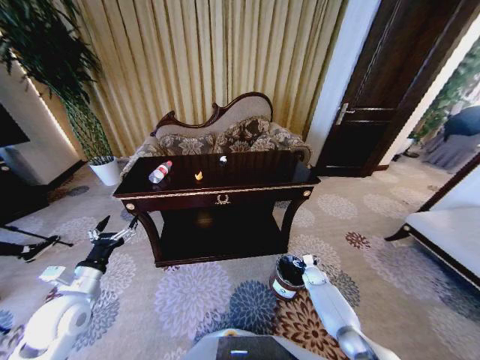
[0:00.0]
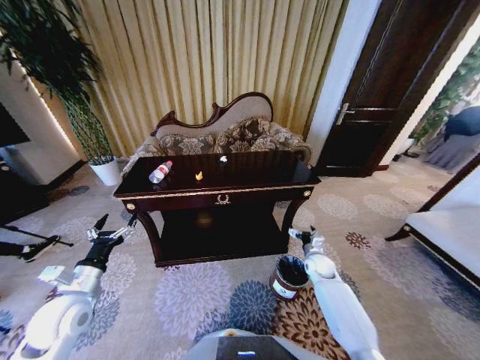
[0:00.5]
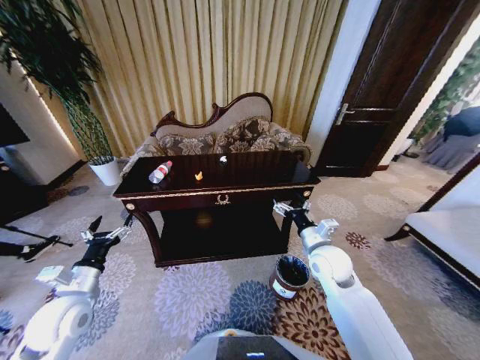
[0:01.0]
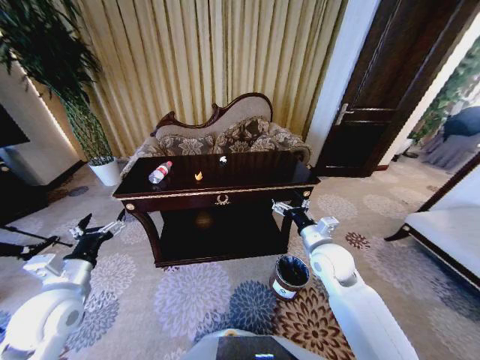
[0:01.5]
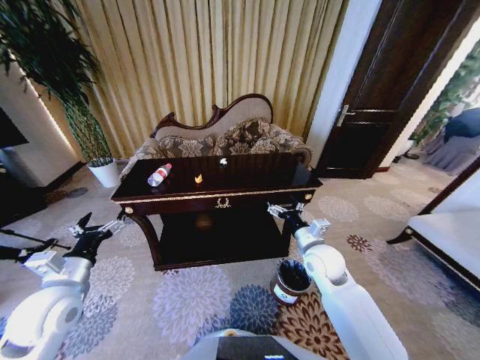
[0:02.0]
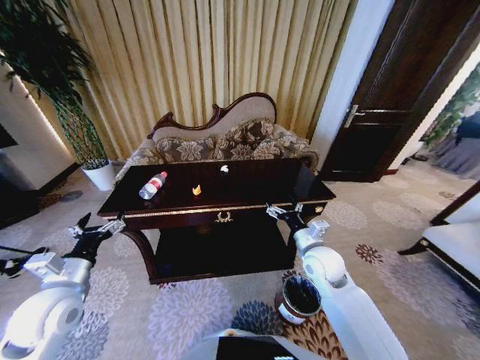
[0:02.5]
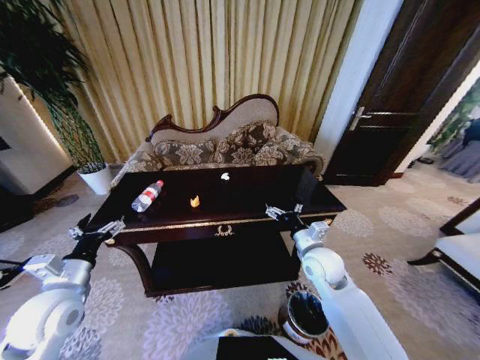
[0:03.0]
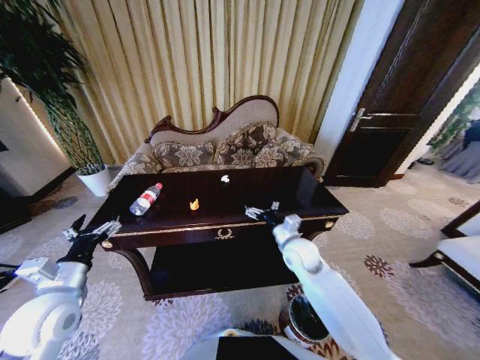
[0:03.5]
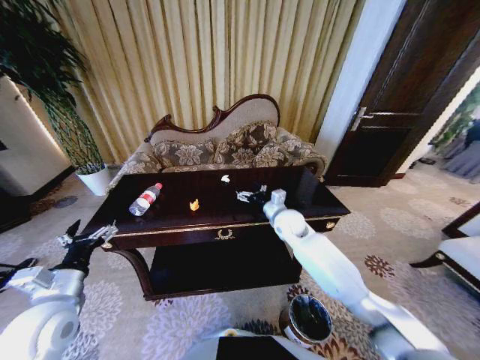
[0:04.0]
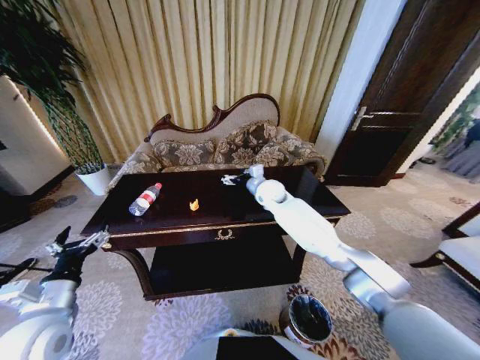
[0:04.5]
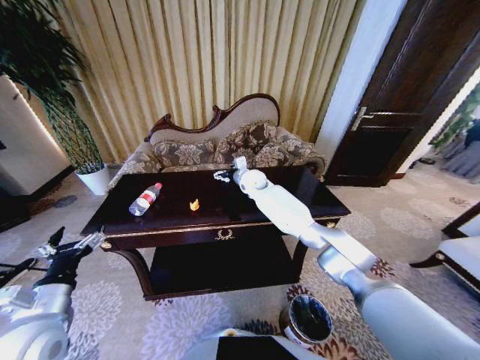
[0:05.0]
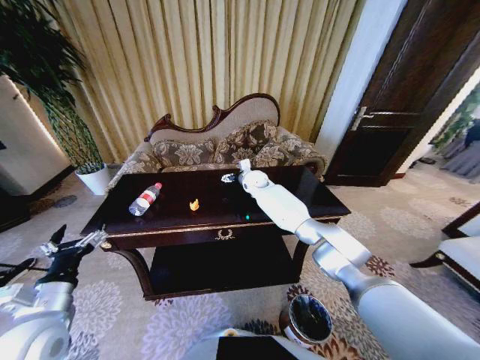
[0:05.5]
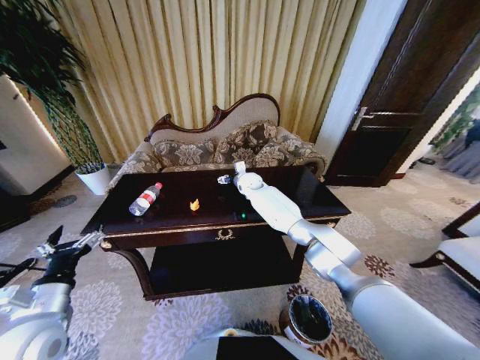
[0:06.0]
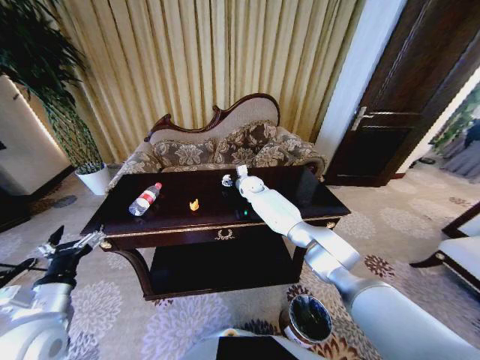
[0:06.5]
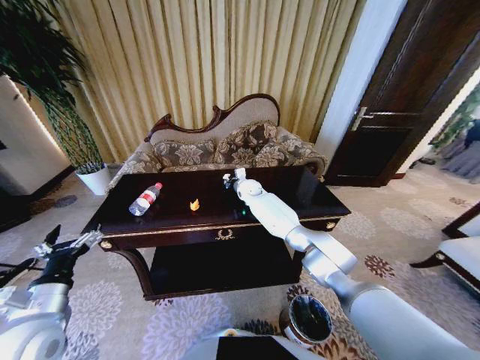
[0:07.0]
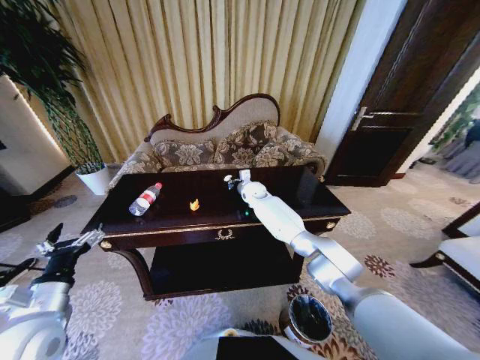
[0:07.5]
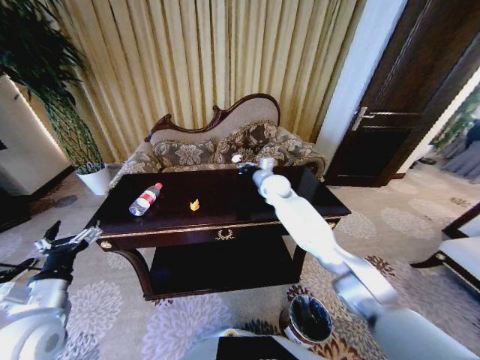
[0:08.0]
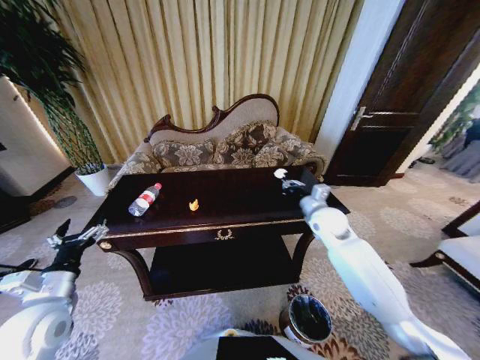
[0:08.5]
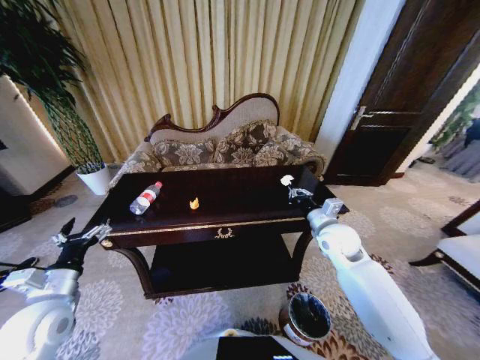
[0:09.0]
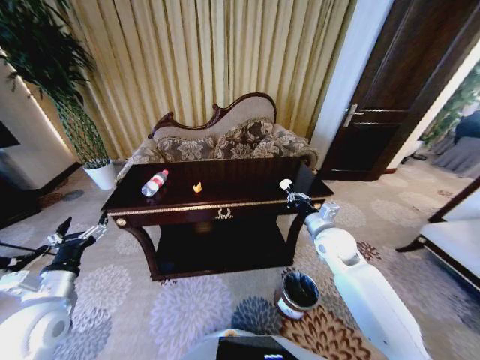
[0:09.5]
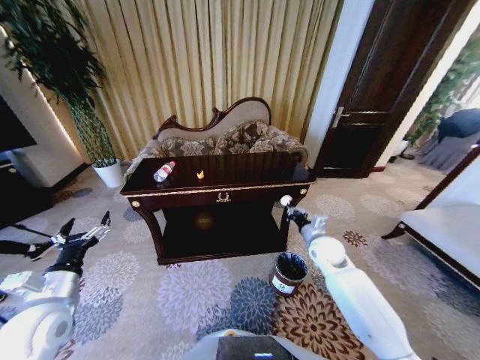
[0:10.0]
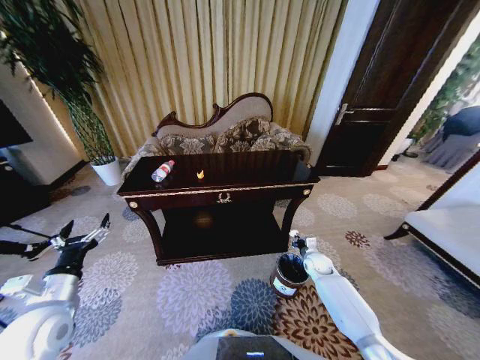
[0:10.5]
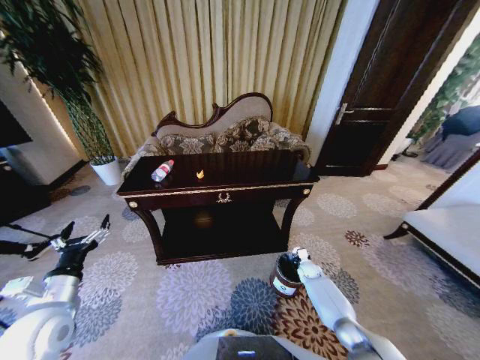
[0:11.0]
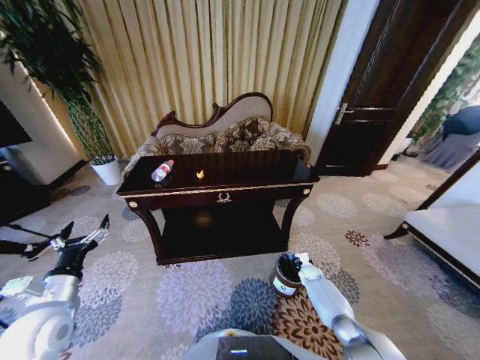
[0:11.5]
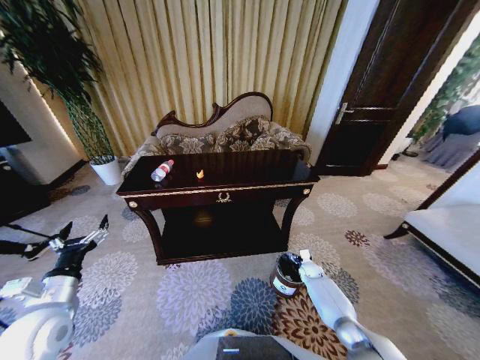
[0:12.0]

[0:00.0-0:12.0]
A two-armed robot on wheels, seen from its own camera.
Task of the whole recording: Move to the front of the table and place the trash on the table into the trash bin.
0:00.0 to 0:02.0: The right gripper heads upward and to the left, covering roughly 35 cm; the left gripper shifts roughly 5 cm upward.
0:02.0 to 0:04.0: The right gripper shifts approximately 15 cm forward and to the left.
0:04.0 to 0:06.0: The right gripper moves forward and to the left, some 20 cm.
0:06.0 to 0:08.0: The right gripper goes about 10 cm to the right and backward, and closes its fingers.
0:08.0 to 0:10.0: The right gripper is displaced backward, to the right and downward by approximately 25 cm.
0:10.0 to 0:12.0: The right gripper moves downward, roughly 25 cm, and opens.

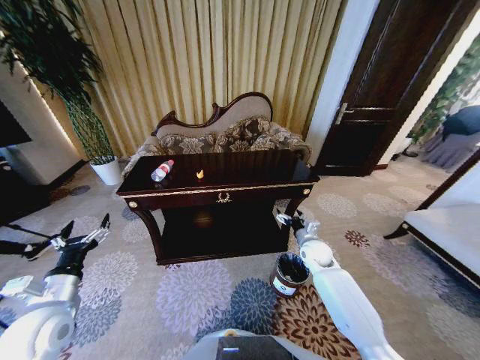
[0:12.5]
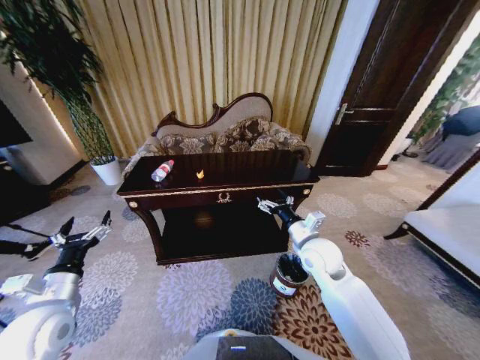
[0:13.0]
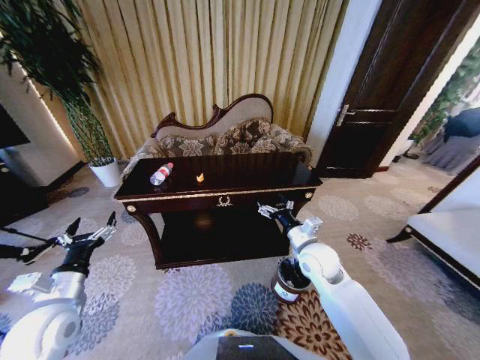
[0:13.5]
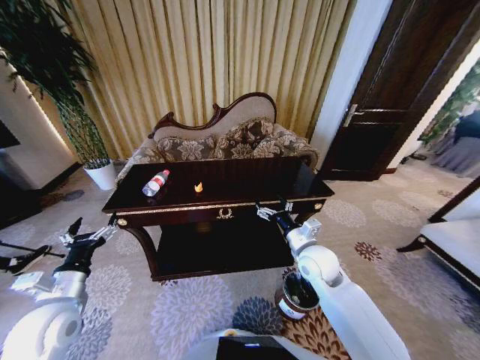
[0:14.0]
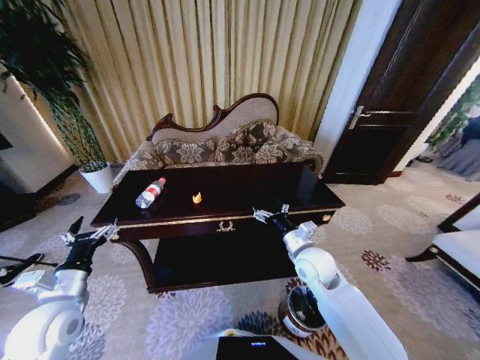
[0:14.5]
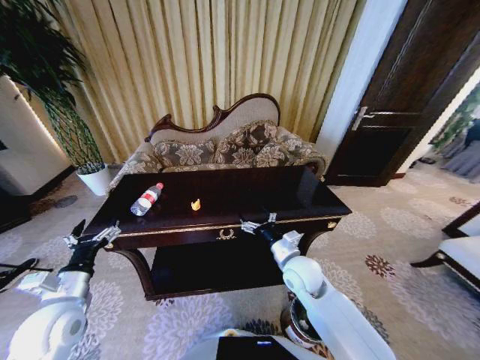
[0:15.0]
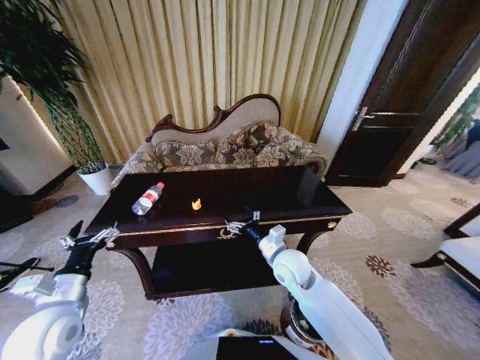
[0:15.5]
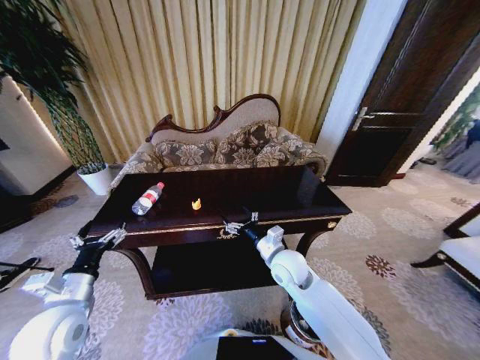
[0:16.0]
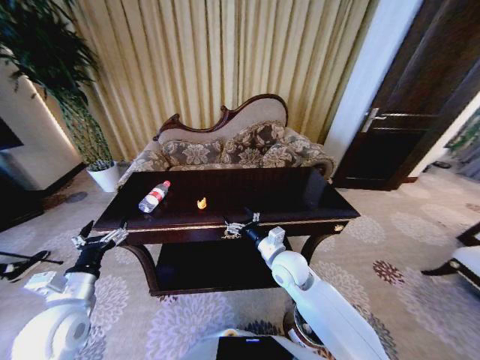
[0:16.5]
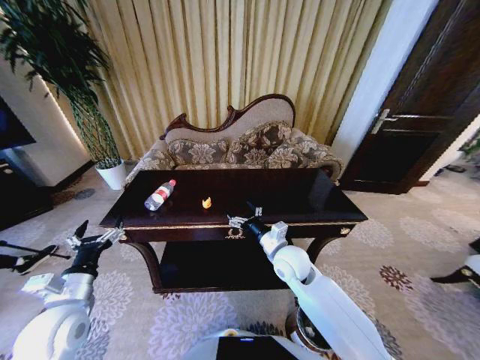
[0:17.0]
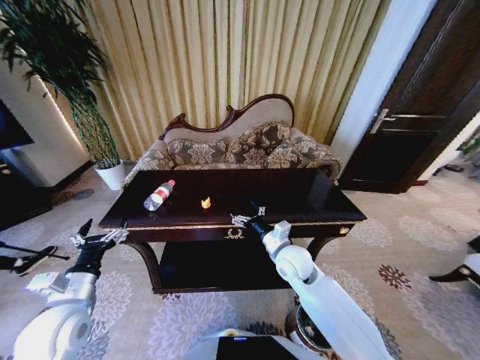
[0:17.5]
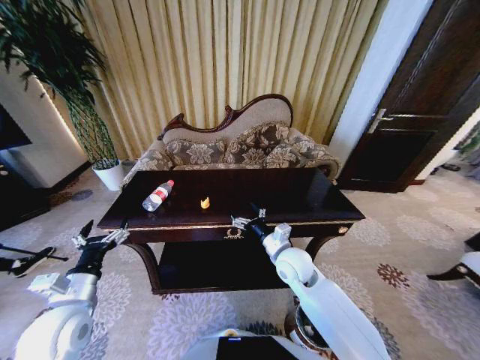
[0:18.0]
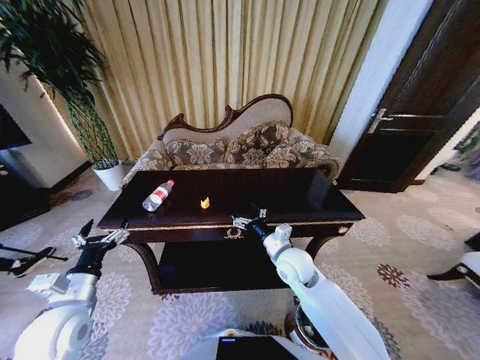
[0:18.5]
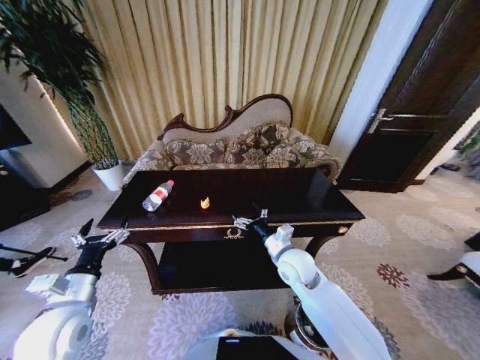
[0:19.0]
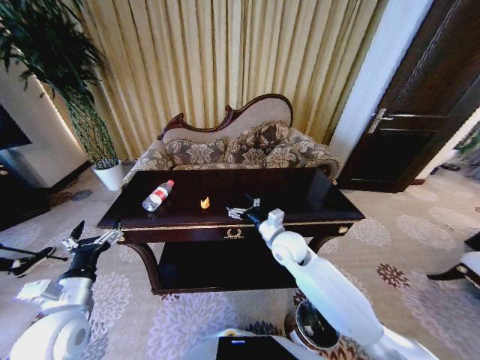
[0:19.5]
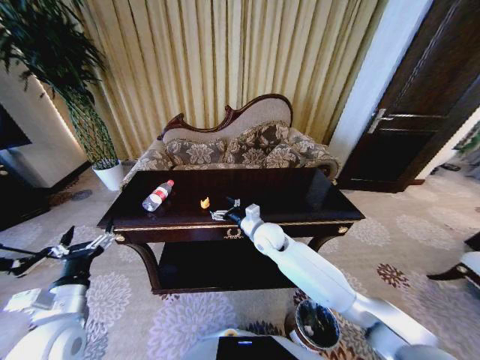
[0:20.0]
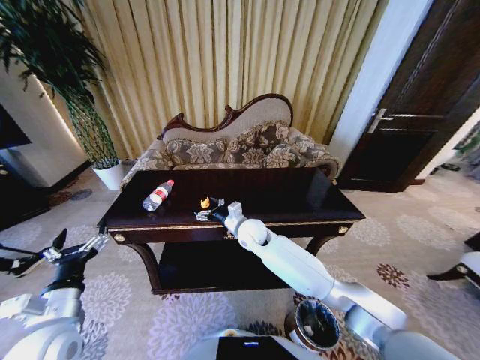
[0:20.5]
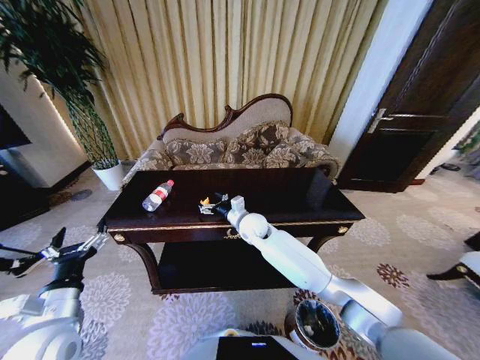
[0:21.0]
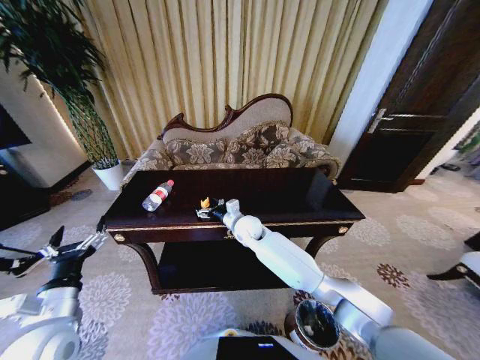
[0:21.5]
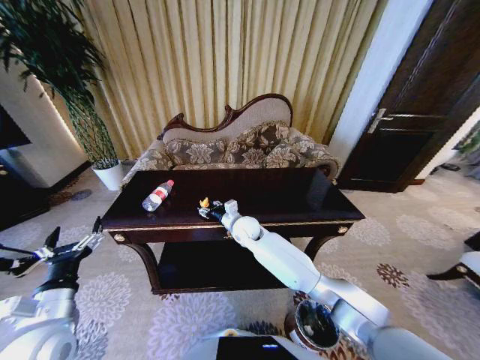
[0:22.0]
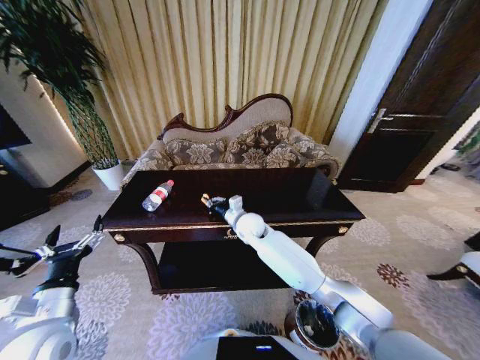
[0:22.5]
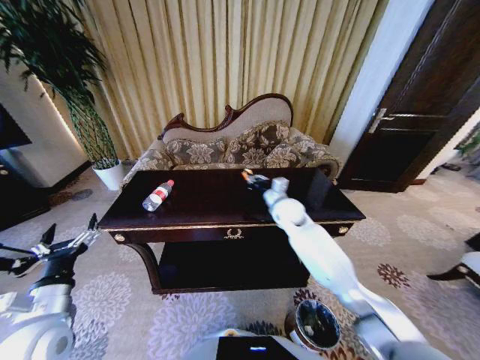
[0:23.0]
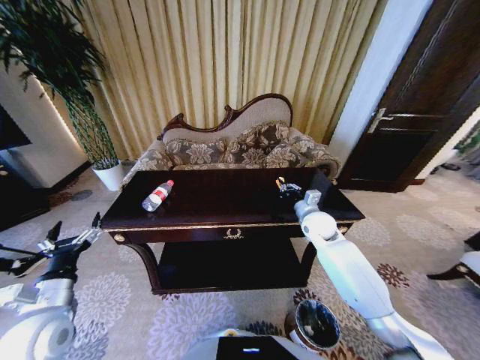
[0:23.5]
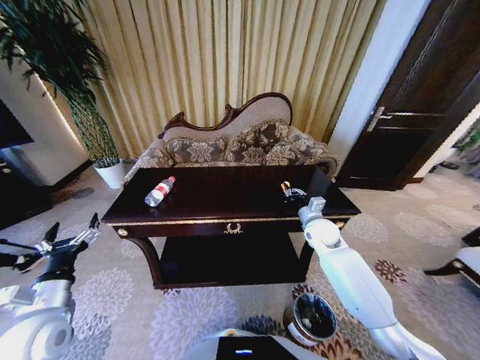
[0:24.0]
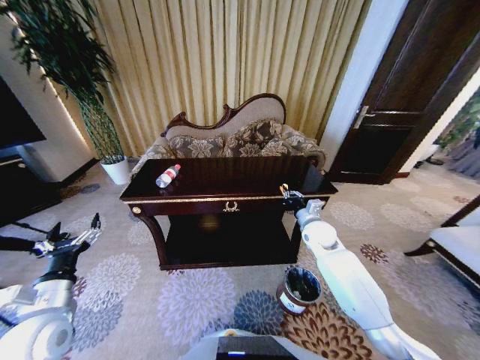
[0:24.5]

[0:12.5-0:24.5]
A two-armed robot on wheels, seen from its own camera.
Task of the whole recording: Move to the front of the table and place the trash on the table into the trash bin.
0:12.5 to 0:14.5: The right gripper travels upward, backward and to the left by about 15 cm.
0:14.5 to 0:16.5: The right gripper shifts some 5 cm to the left.
0:18.5 to 0:20.5: The right gripper heads forward and to the left, covering roughly 15 cm.
0:20.5 to 0:22.5: The right gripper closes.
0:22.5 to 0:24.5: The right gripper shifts about 25 cm to the right.

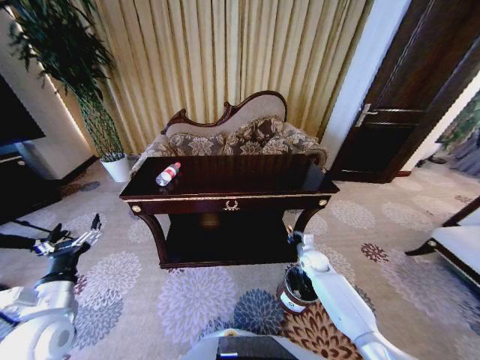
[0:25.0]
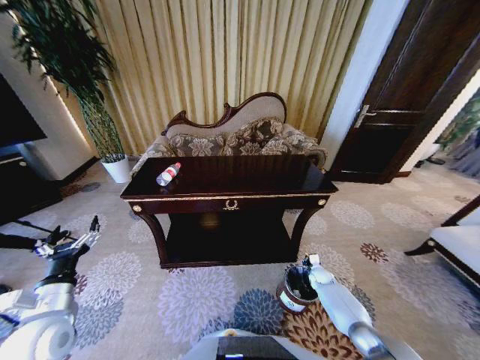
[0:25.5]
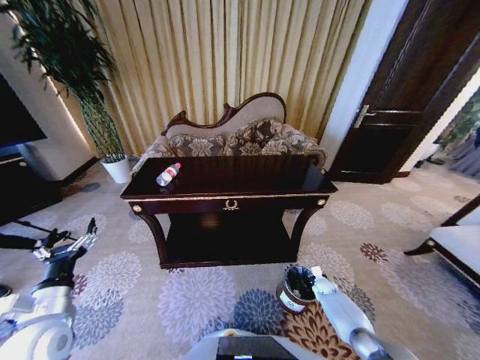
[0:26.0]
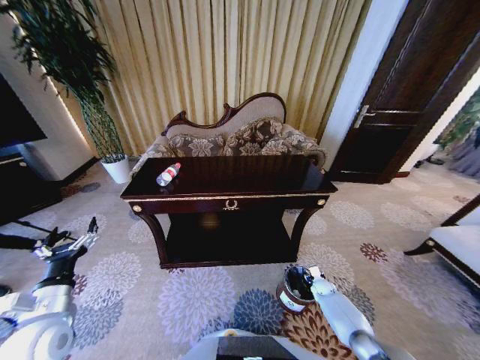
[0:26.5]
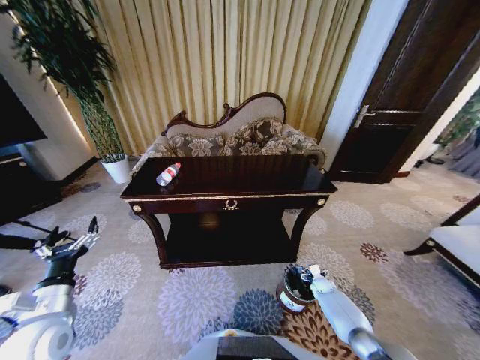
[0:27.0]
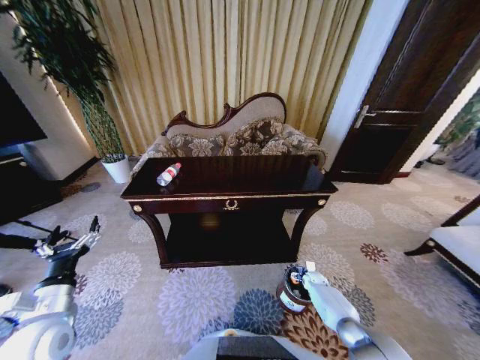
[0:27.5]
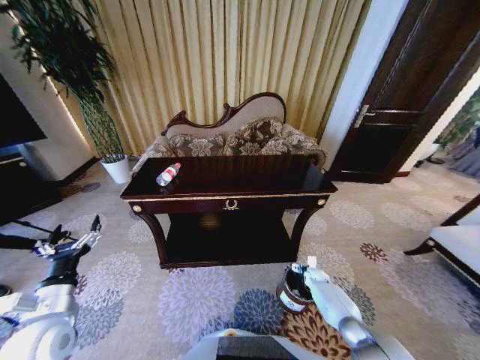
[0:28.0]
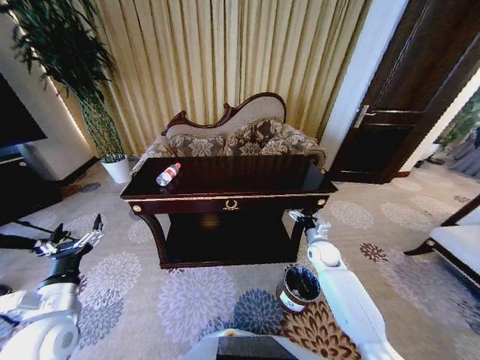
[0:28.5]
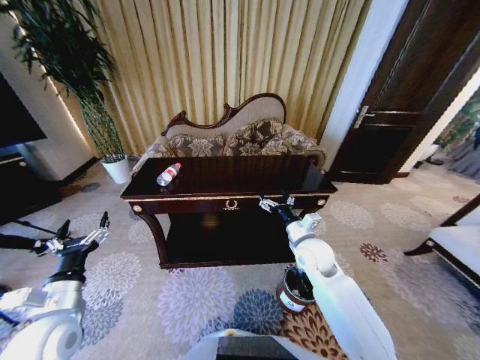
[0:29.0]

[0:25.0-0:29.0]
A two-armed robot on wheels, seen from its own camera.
Task of the whole recording: Move to the front of the table and place the trash on the table into the trash bin.
0:25.0 to 0:27.0: The right gripper goes some 15 cm downward, to the right and backward, and opens.
0:27.0 to 0:29.0: The right gripper travels upward and to the left by approximately 40 cm.
